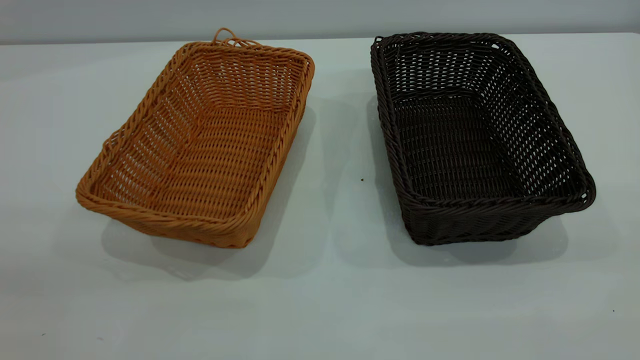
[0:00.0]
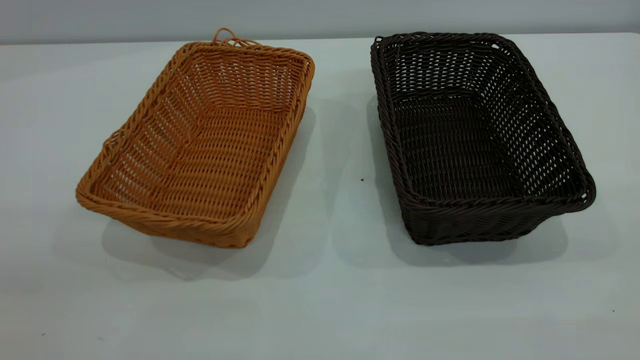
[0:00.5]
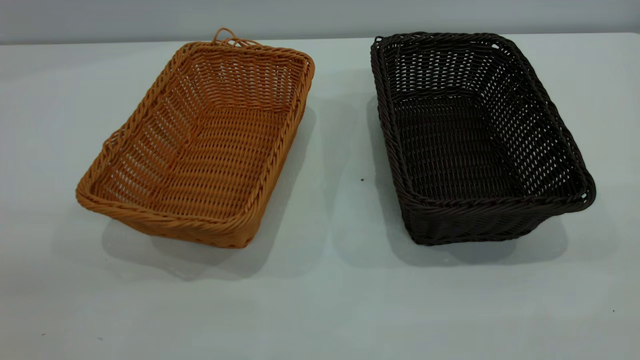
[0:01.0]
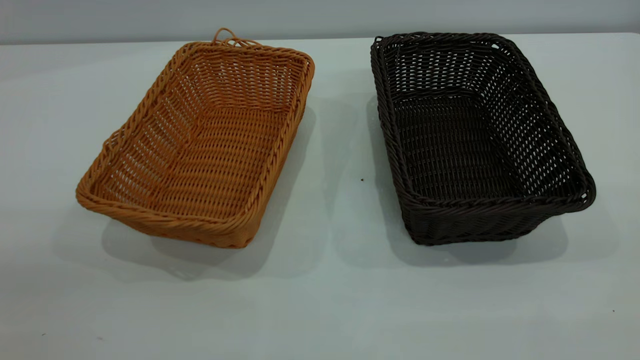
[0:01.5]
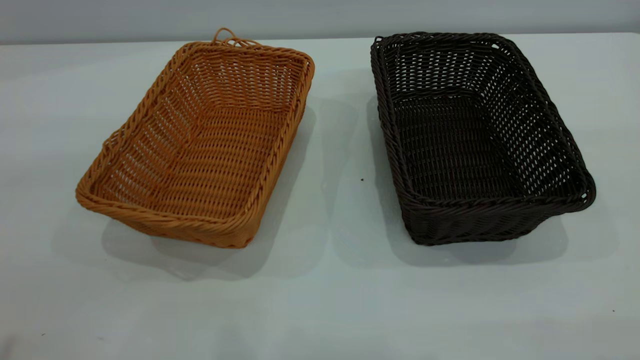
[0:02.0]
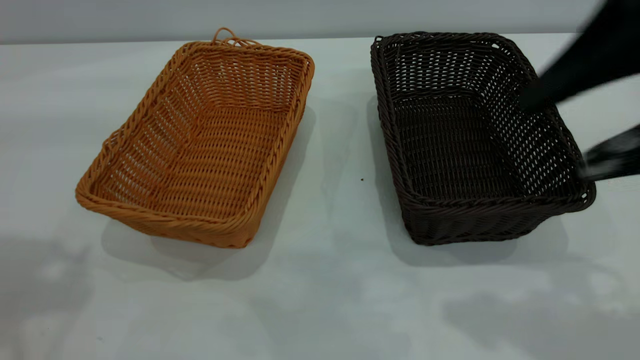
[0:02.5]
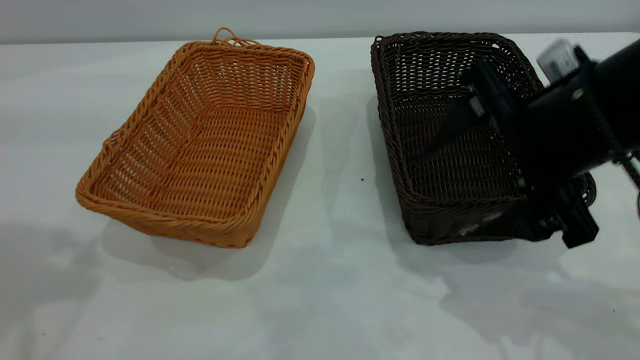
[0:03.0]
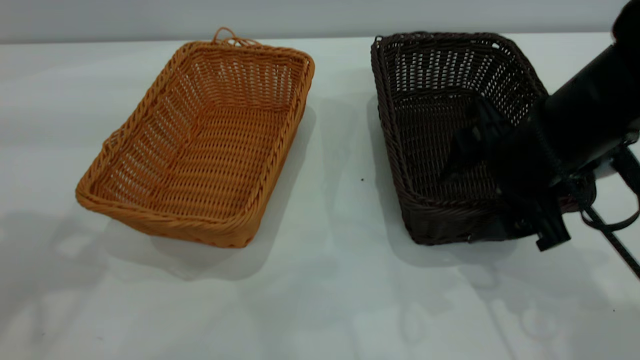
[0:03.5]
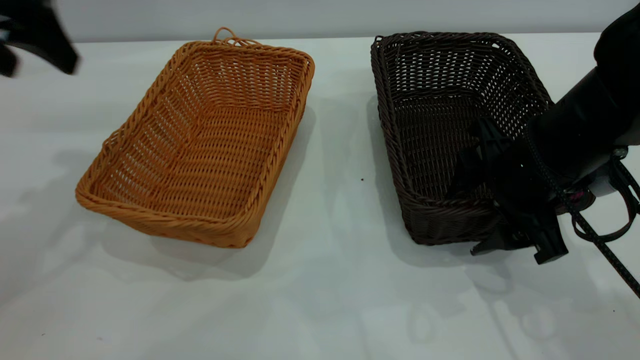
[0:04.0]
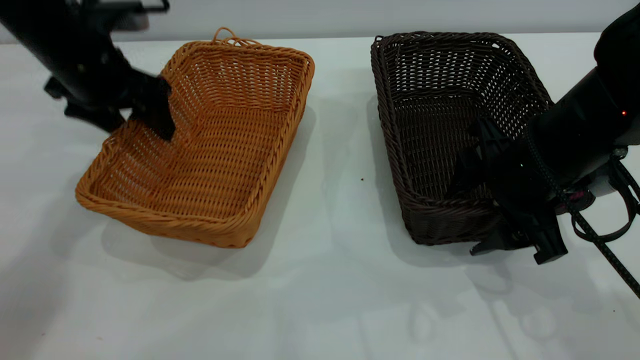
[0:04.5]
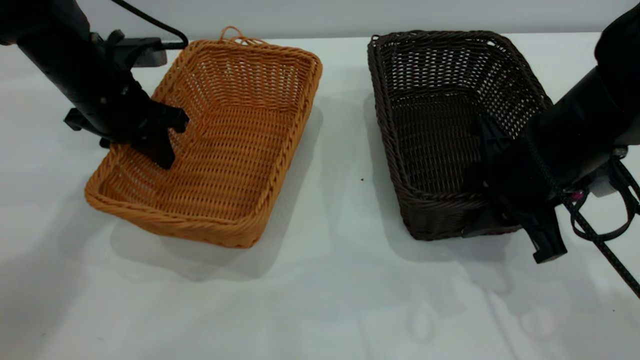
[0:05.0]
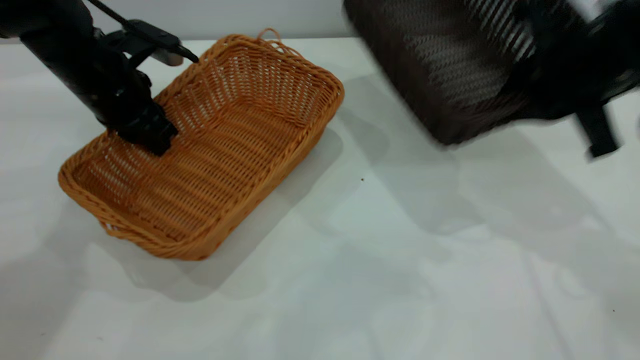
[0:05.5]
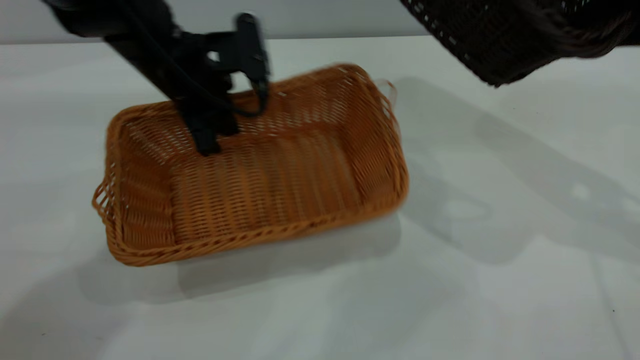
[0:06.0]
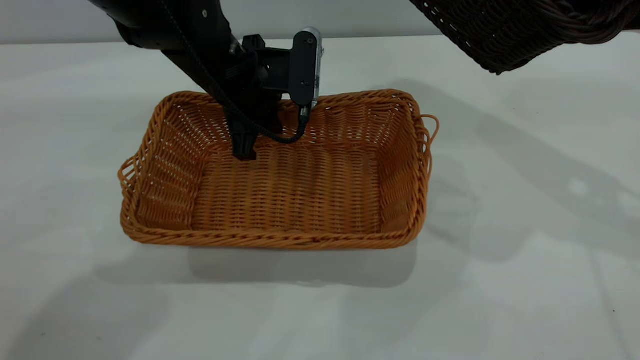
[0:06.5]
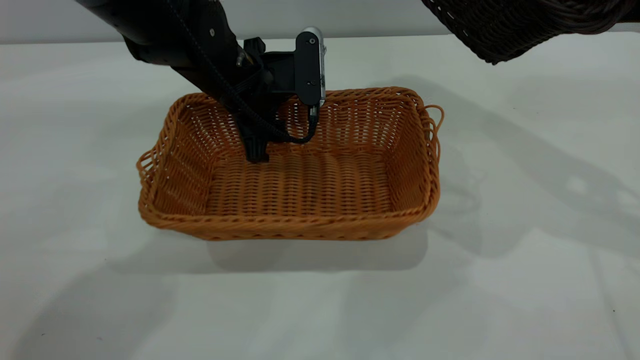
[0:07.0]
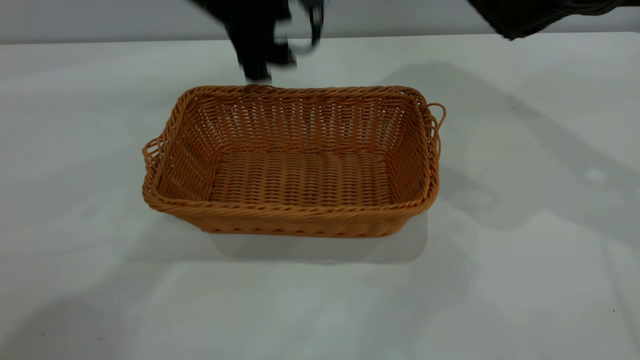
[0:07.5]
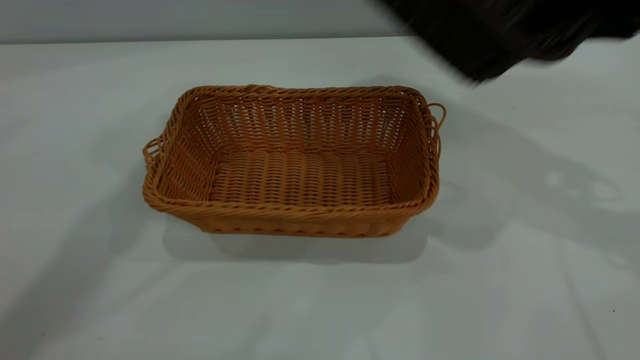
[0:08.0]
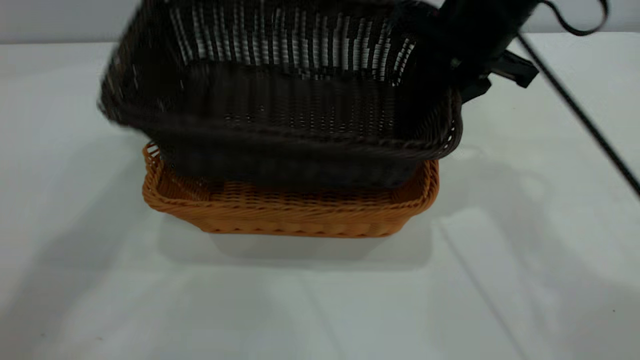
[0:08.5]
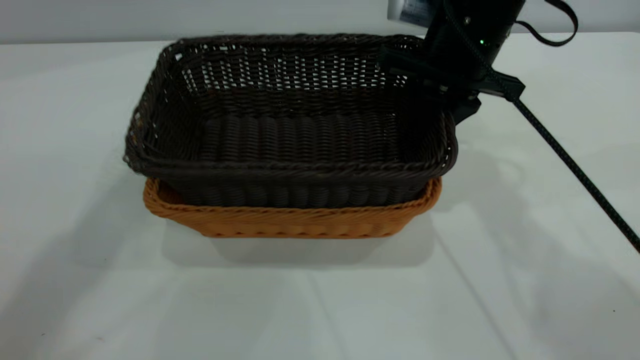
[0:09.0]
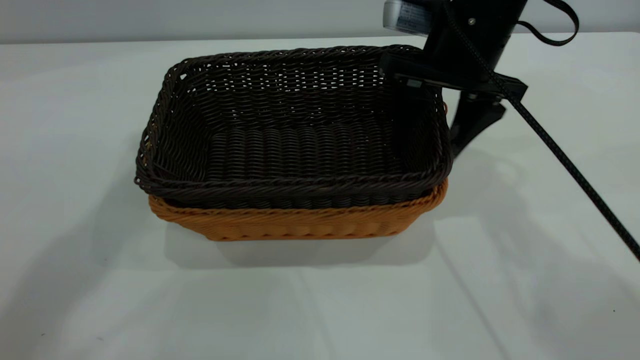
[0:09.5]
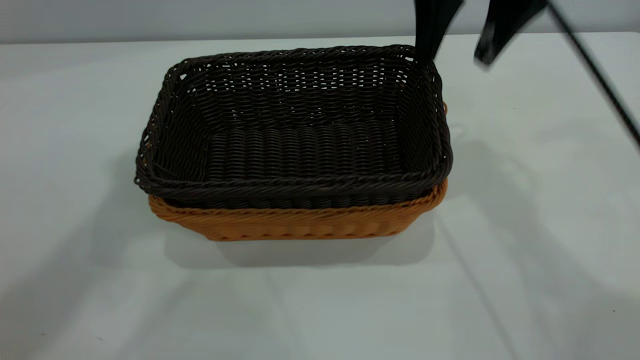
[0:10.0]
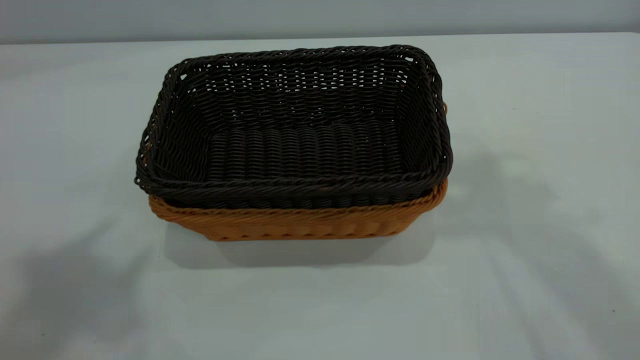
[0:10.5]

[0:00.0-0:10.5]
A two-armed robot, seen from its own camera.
Task of the whole recording: the left gripper grasp the brown basket and place it in the center of the table, the right gripper grasp the black basket and place it inside the brown one.
Step, 0:00.0 to 0:05.0: Pick up the light basket with the right gripper.
Step, 0:05.5 to 0:07.0: Place the light-colored basket in the center.
Step, 0:08.0 to 0:10.0: Place the dark basket on top of the light basket.
0:02.0 to 0:04.0: The left gripper goes approximately 30 cm forward and downward, while the right gripper shifts roughly 30 cm downward and forward.
0:04.0 to 0:06.5: The right gripper travels upward and to the right by roughly 20 cm, and closes up. Meanwhile the left gripper shifts about 25 cm to the right and downward, and closes its fingers.
0:06.5 to 0:08.5: The left gripper heads upward, covering roughly 40 cm, and opens. Meanwhile the right gripper moves to the left, downward and forward, approximately 20 cm.
0:08.5 to 0:10.5: The left gripper heads backward, covering roughly 15 cm, while the right gripper shifts roughly 30 cm upward, and opens.

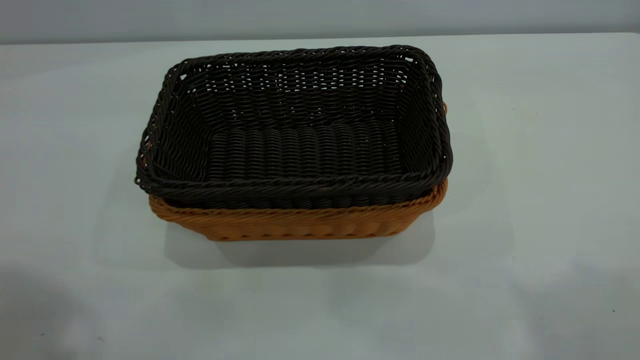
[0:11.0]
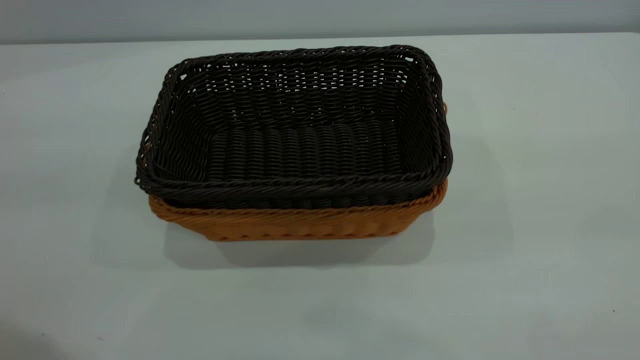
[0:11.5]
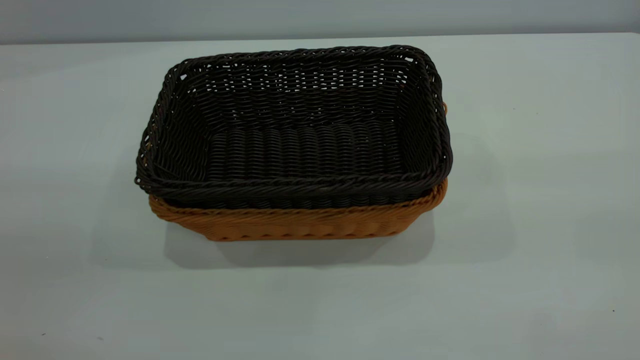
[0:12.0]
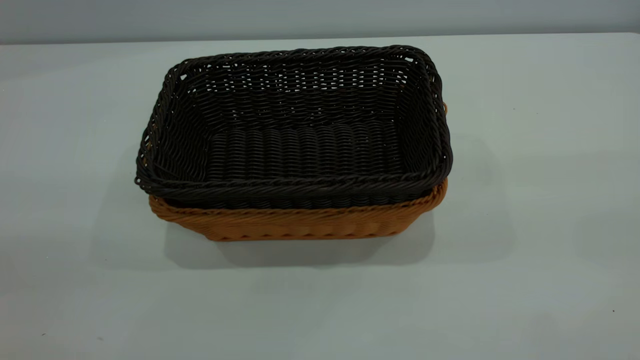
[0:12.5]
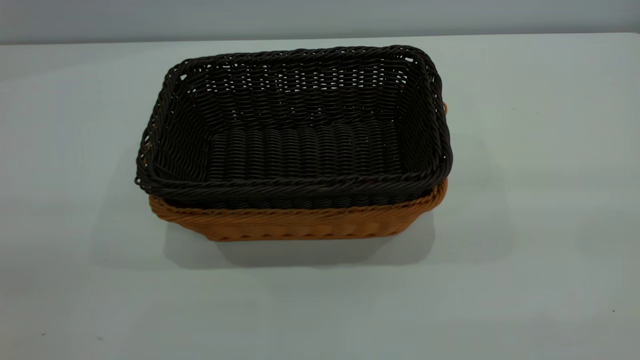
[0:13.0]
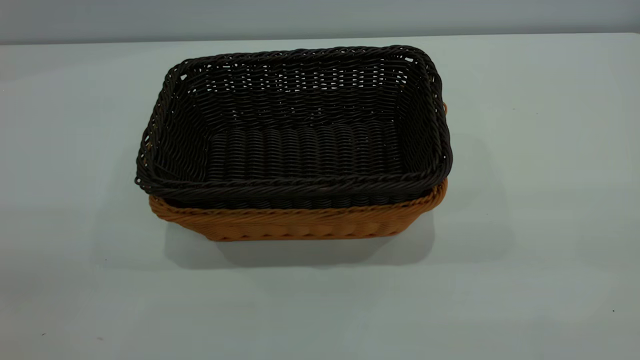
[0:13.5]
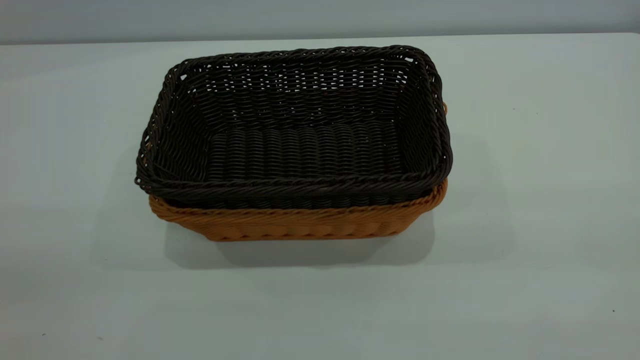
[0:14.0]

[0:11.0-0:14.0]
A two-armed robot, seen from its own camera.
Task of the whole recording: the left gripper grasp the brown basket and place it in the center of the table, the right gripper grasp the black basket and place it inside the brown one.
0:11.0 to 0:12.5: The left gripper moves downward and backward, some 20 cm.
